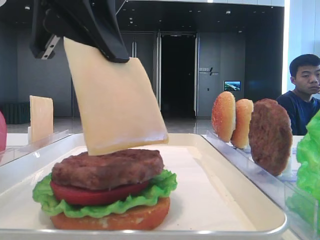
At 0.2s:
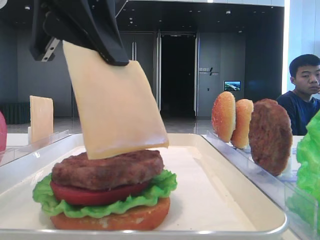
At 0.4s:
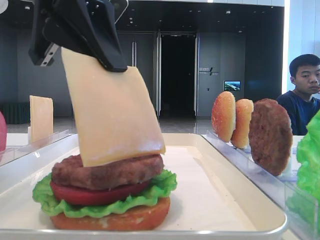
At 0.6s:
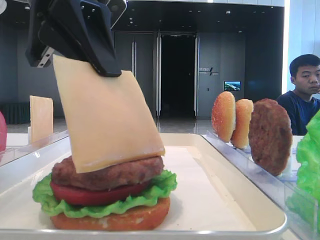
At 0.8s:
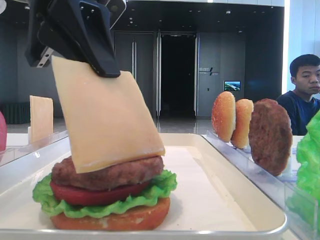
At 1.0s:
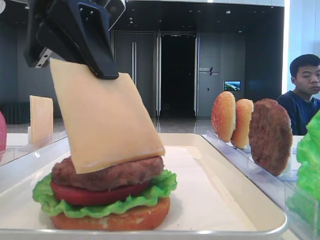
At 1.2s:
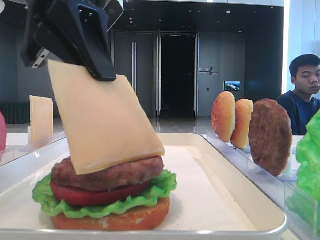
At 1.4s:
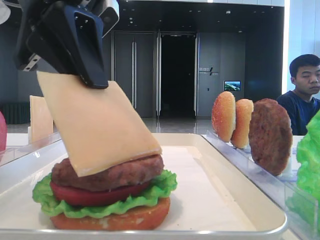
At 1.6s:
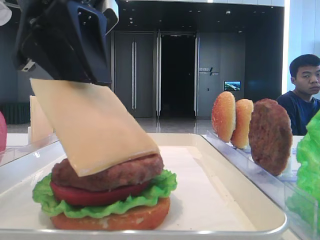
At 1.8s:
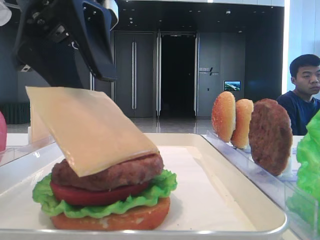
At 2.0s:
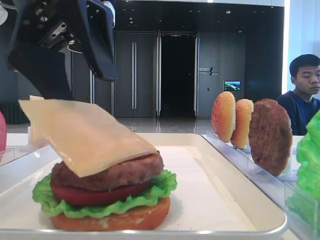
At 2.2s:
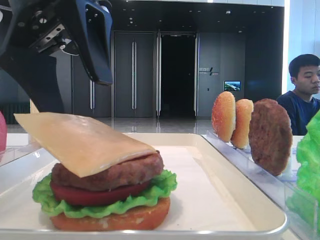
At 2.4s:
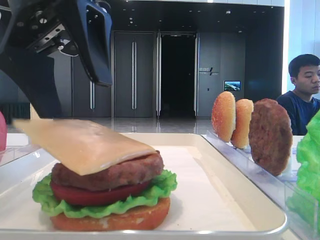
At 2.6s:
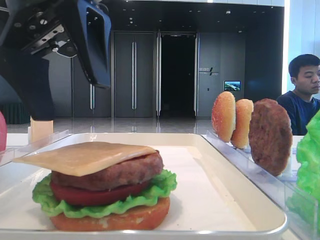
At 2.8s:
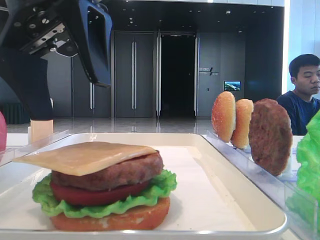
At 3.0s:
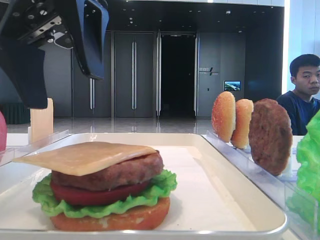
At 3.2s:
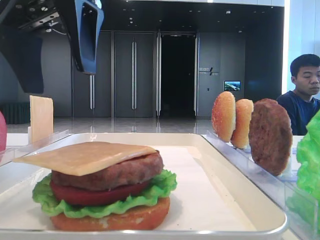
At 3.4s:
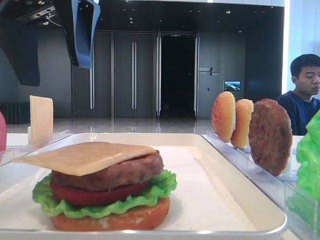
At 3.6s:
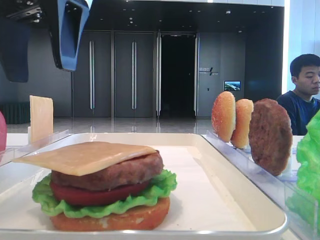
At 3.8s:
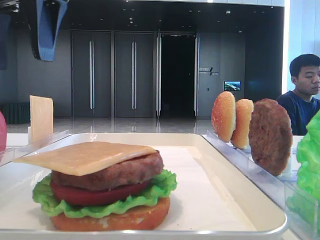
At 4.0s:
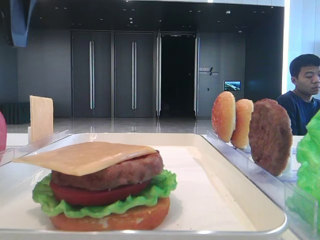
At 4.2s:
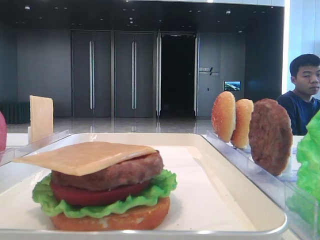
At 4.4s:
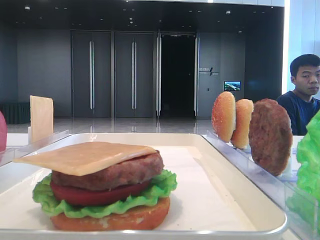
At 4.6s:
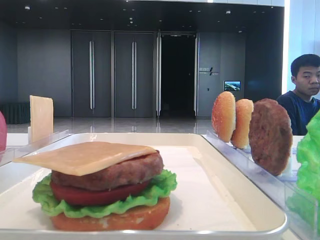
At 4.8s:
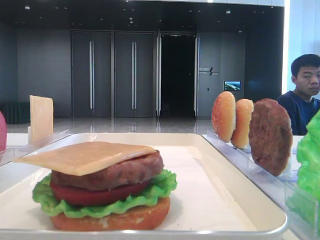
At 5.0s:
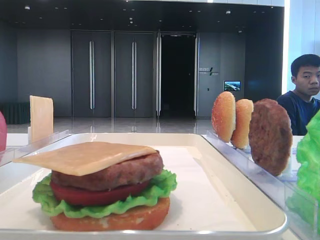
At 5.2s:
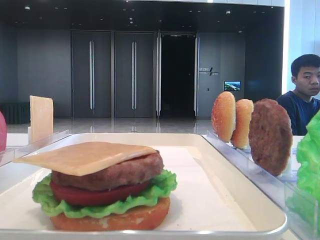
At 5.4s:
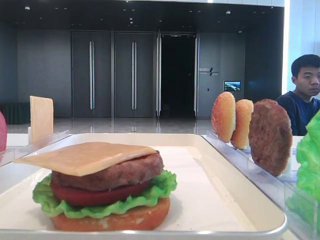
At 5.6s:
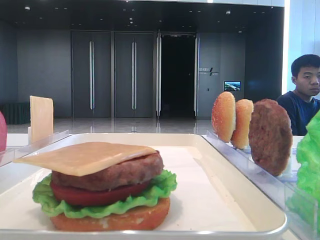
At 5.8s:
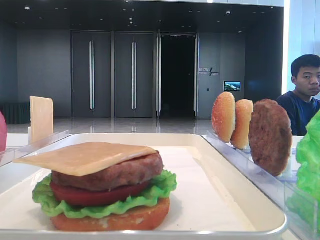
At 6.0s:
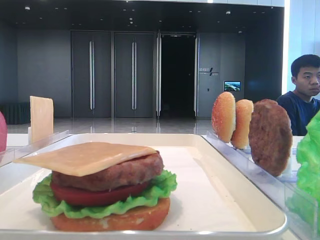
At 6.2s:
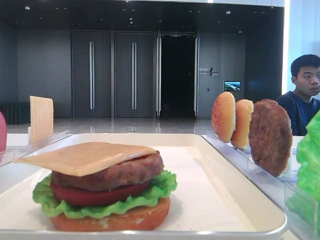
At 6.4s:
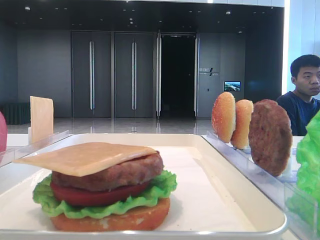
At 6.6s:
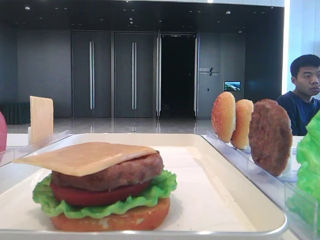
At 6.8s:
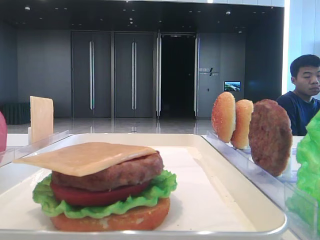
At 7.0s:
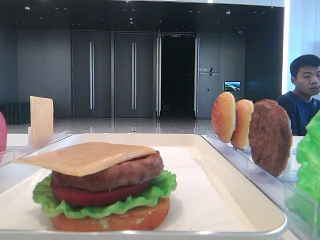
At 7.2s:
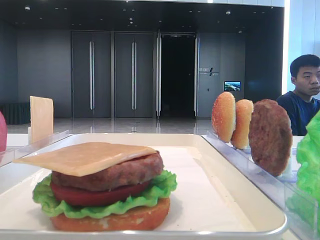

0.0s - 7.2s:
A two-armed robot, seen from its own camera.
Step, 0.0s - 2.4s: Place the cheese slice on the patty with the left hand.
0.0s - 1.4s: The grippers stay close to where they were, moving slightly.
1.4s - 2.8s: The left gripper opens up.
2.8s - 4.4s: The left gripper shifts about 20 cm to the left and upward.

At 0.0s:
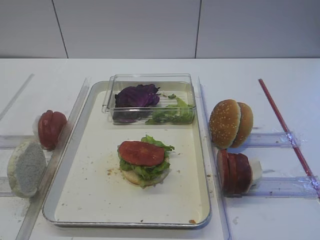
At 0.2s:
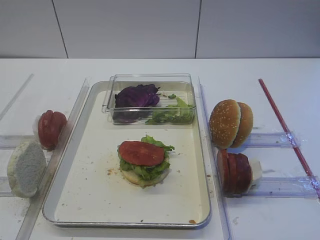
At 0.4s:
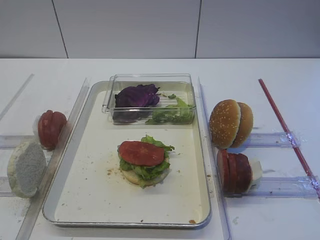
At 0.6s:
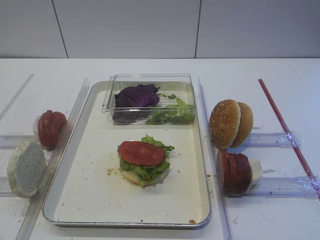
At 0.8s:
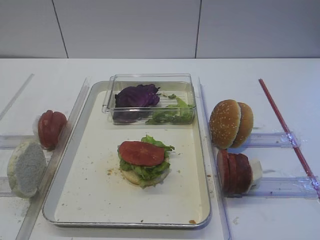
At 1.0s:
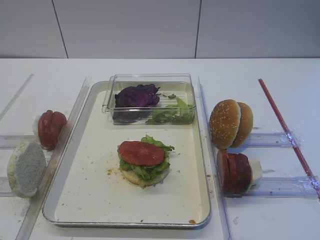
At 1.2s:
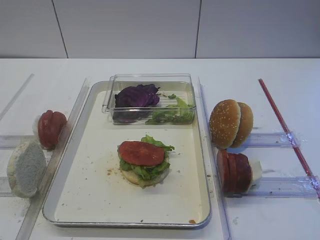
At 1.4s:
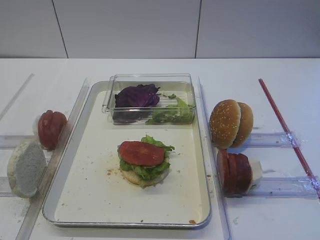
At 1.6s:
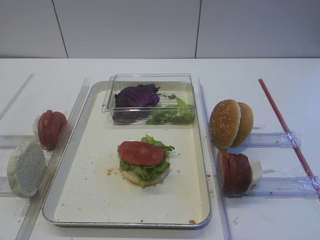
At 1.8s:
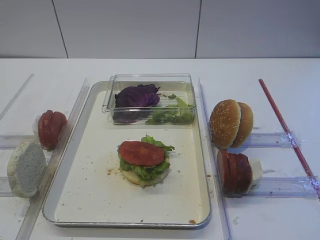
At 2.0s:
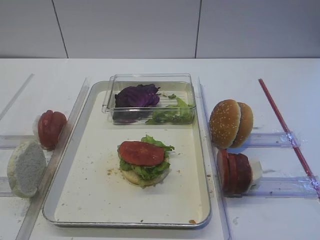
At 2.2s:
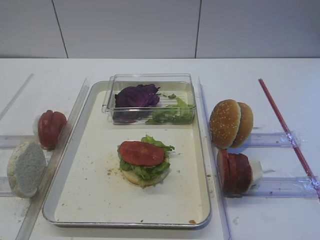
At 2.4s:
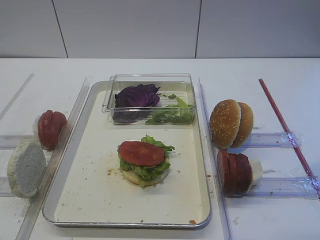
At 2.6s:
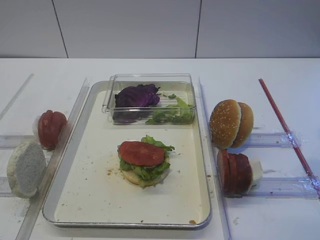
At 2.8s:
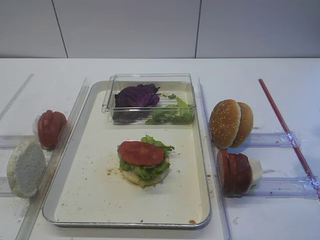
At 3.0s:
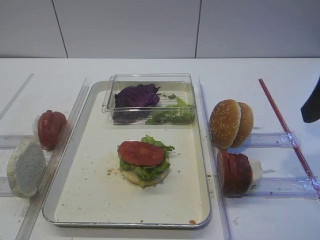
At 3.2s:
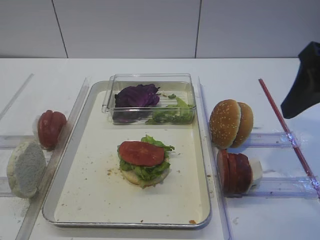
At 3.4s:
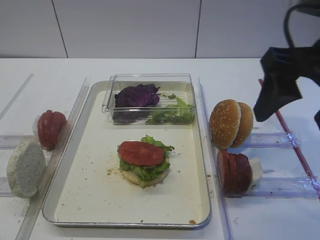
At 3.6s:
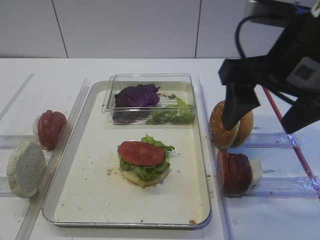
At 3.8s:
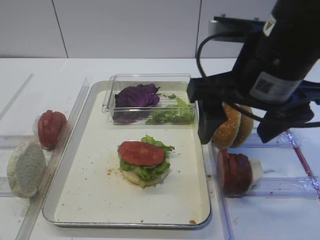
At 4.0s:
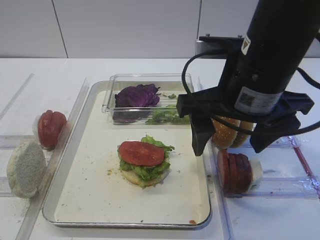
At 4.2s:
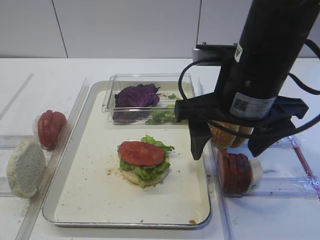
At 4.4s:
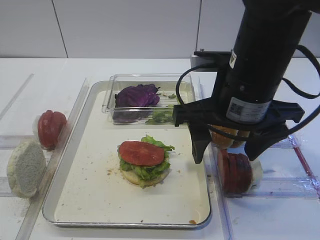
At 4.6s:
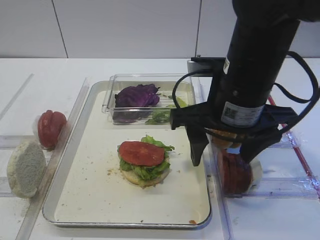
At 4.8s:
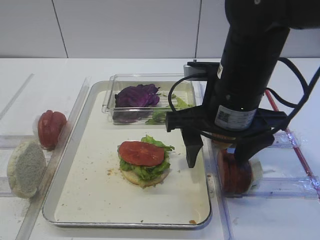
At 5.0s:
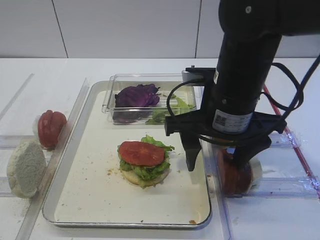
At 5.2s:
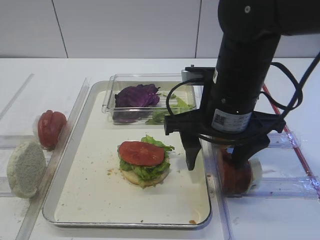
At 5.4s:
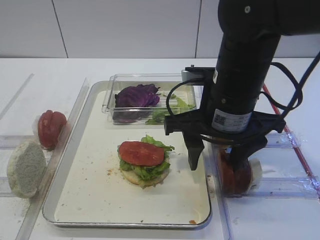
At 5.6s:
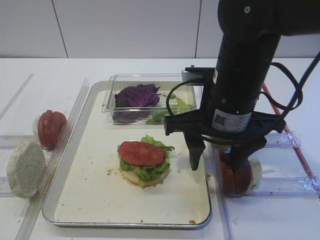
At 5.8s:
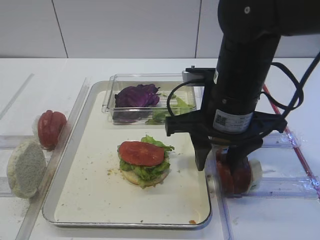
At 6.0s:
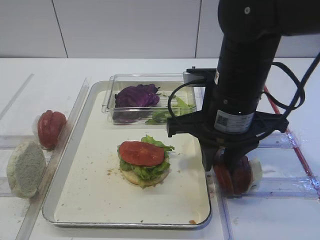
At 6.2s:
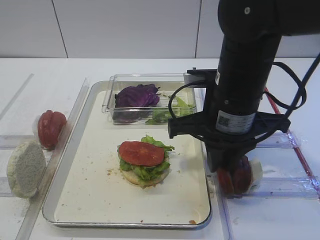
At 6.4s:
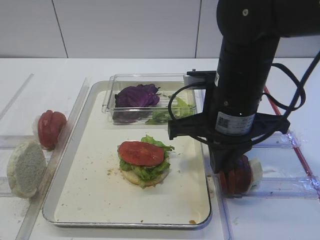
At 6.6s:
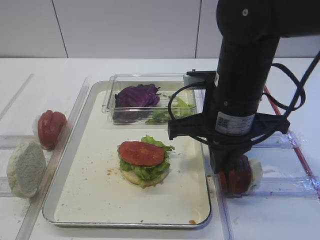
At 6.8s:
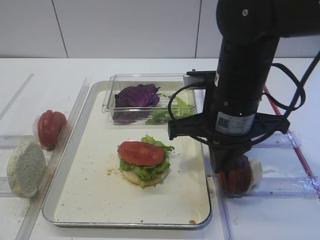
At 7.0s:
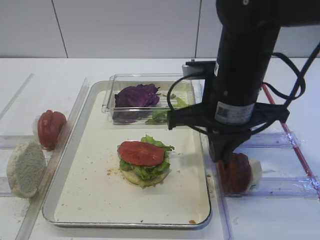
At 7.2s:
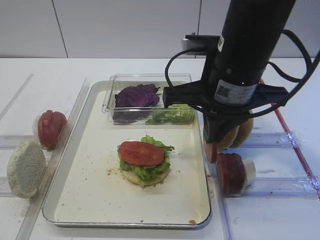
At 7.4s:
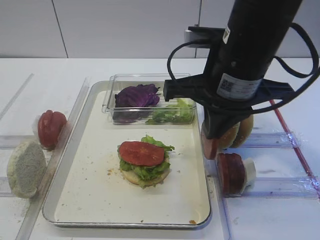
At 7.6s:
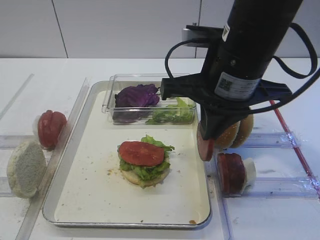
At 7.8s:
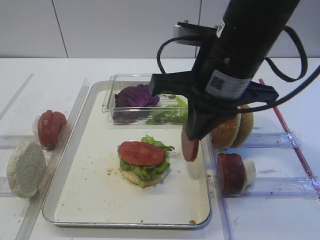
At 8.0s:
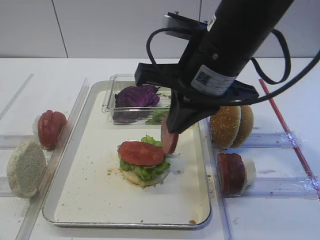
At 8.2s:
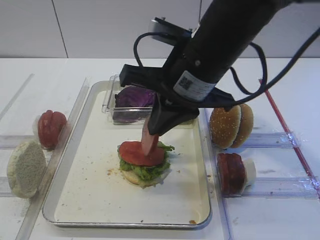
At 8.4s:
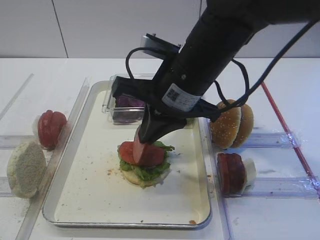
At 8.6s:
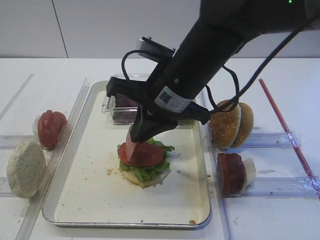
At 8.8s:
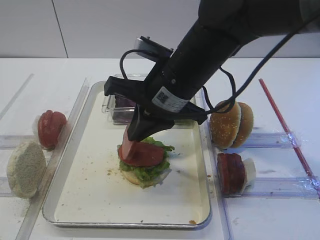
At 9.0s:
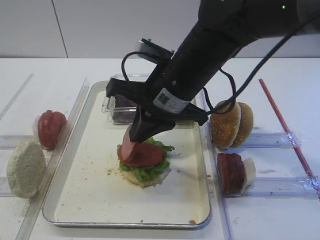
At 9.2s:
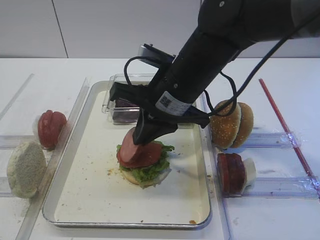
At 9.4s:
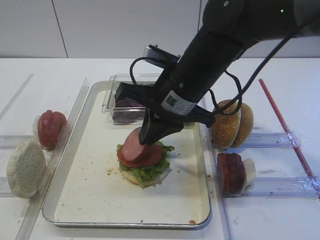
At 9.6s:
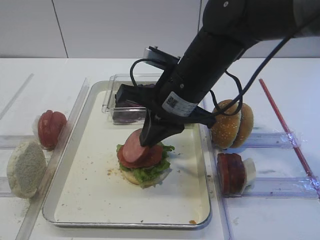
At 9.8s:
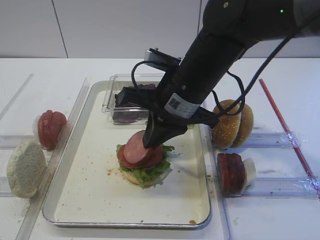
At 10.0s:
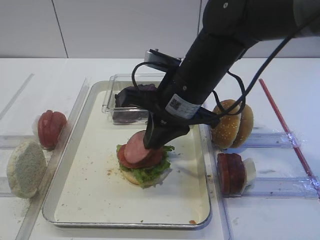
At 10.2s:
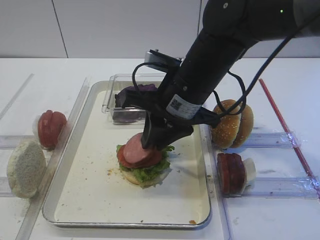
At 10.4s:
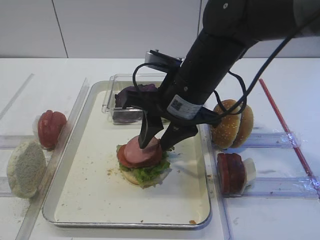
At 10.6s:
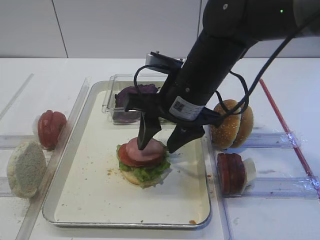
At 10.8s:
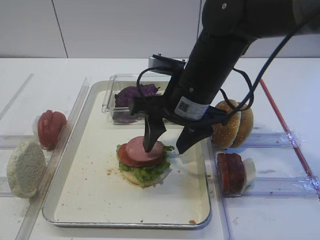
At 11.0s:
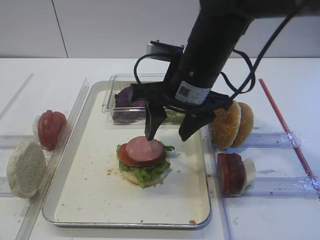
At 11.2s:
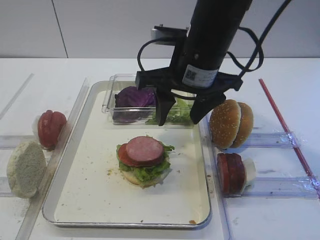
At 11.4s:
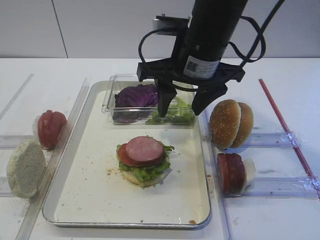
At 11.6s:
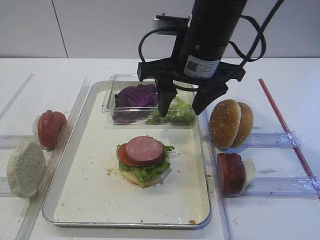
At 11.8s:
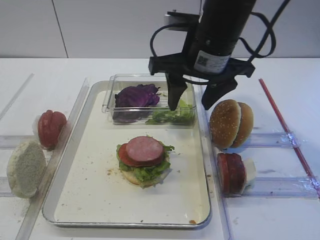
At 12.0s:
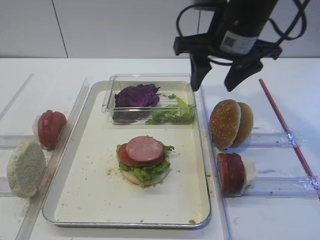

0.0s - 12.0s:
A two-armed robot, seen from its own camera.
Step, 0.0s - 7.4s: Pick up the cutlet with the right gripper.
Step, 7.6s - 11.0s: Place the cutlet on the tomato slice with the right gripper.
1.6s - 3.0s: The right gripper goes approximately 20 cm forward.
3.0s - 4.4s: The right gripper shifts roughly 15 cm to the left and downward.
4.4s - 6.0s: The right gripper closes its fingers.
6.0s - 7.6s: The right gripper travels upward by some 5 cm, and closes its fingers.
7.6s - 9.0s: The right gripper travels to the left by some 5 cm.
9.0s - 10.4s: The right gripper opens up.
10.4s - 12.0s: The right gripper is displaced upward and to the right by about 10 cm.

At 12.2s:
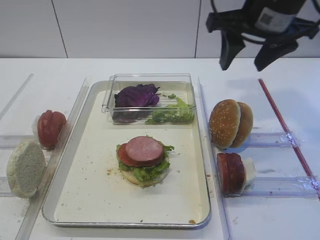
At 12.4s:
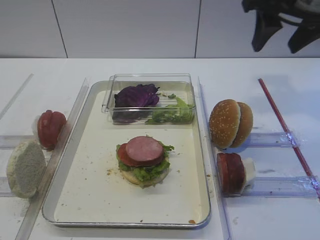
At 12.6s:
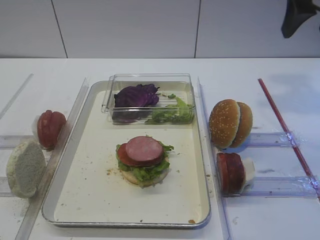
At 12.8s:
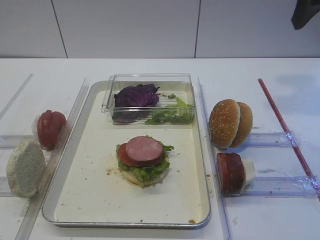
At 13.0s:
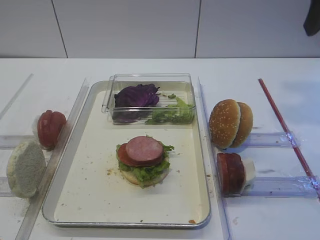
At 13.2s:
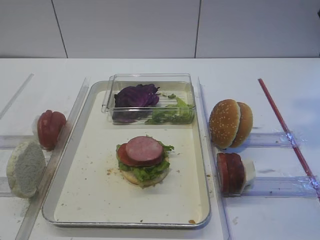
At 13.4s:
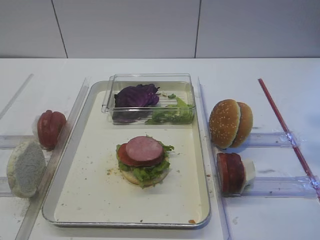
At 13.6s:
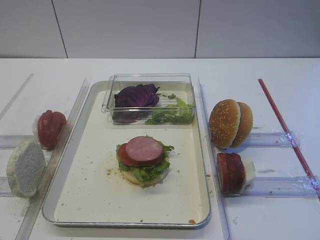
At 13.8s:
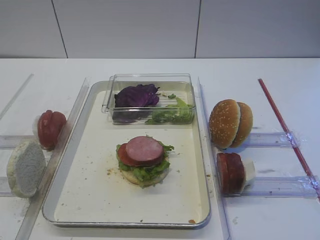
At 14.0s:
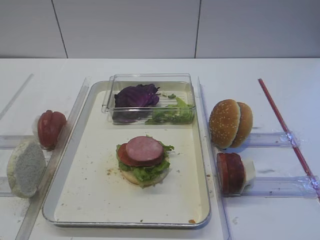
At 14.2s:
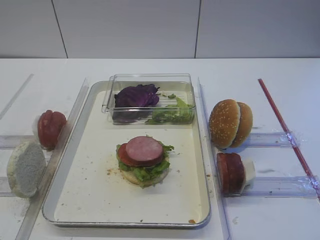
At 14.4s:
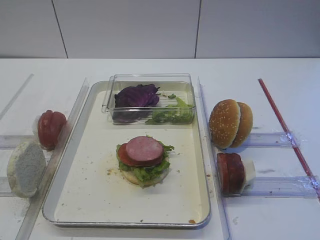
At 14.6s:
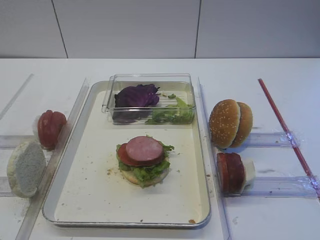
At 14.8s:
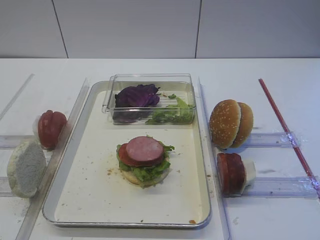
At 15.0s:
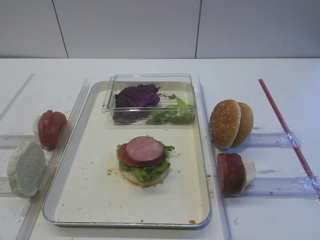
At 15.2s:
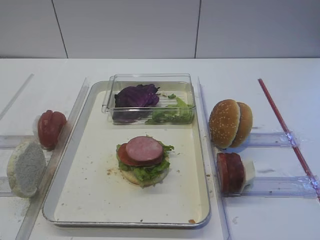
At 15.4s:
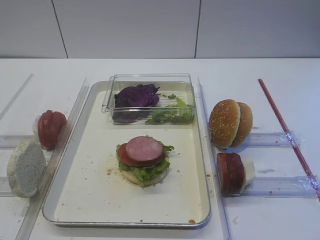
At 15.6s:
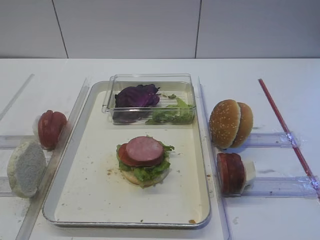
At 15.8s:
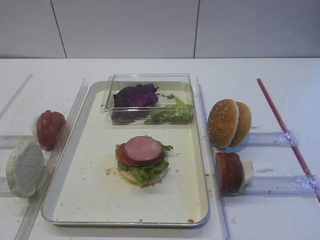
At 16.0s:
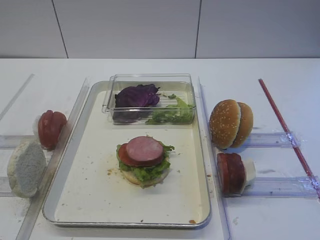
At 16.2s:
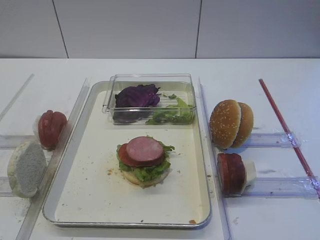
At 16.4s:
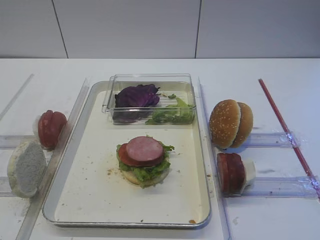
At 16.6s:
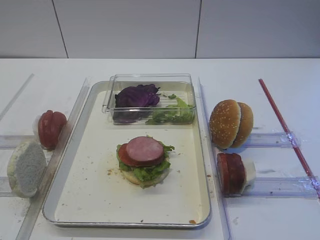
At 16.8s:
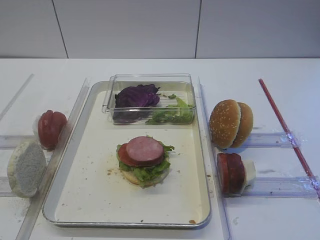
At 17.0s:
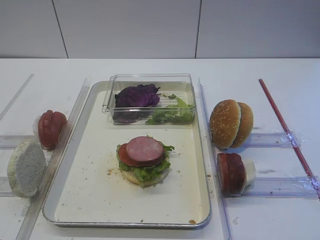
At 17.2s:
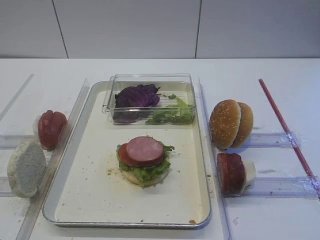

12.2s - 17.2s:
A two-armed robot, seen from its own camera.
12.2s - 13.8s: The right gripper heads backward and to the right, covering some 25 cm.
15.6s - 17.2s: Neither gripper changes place.
